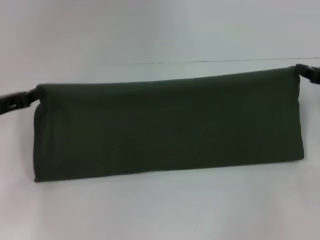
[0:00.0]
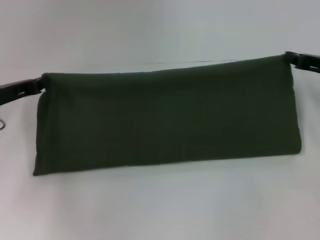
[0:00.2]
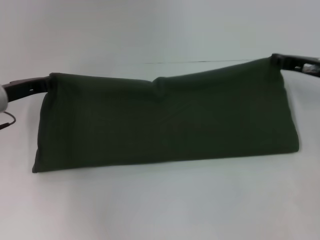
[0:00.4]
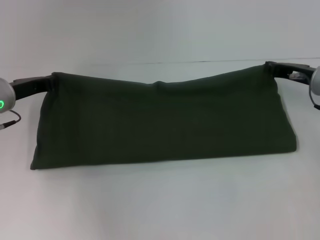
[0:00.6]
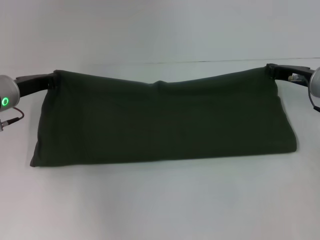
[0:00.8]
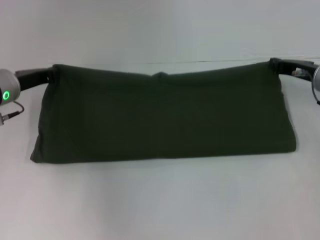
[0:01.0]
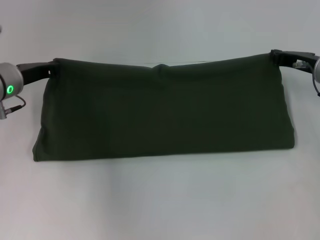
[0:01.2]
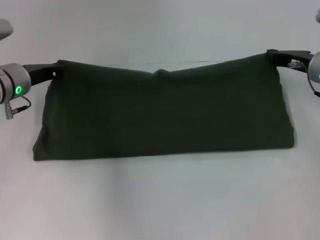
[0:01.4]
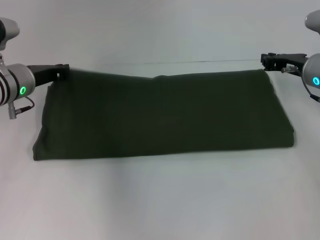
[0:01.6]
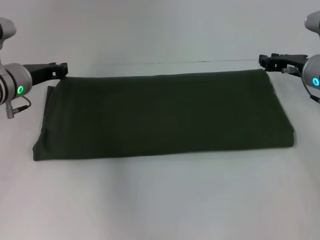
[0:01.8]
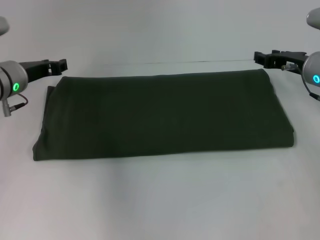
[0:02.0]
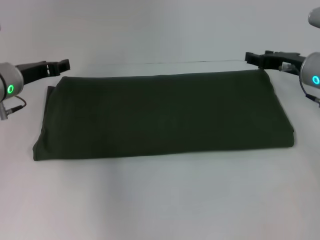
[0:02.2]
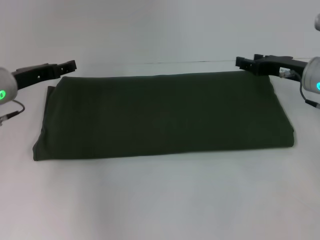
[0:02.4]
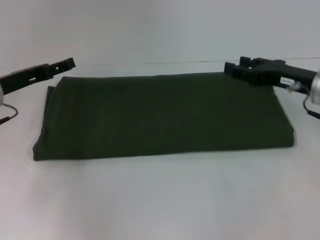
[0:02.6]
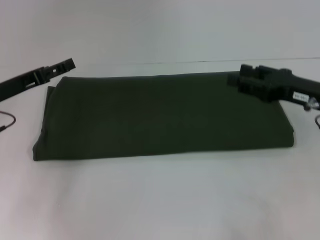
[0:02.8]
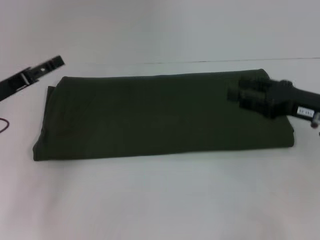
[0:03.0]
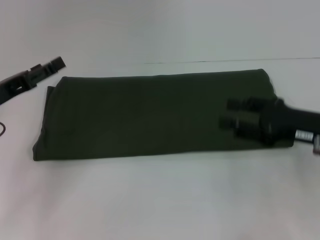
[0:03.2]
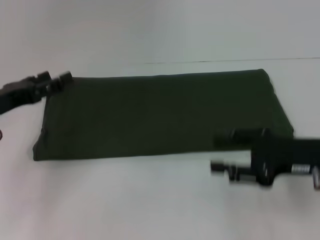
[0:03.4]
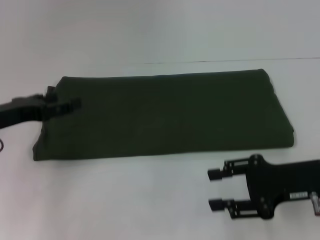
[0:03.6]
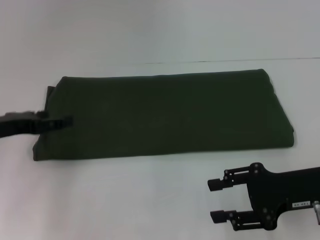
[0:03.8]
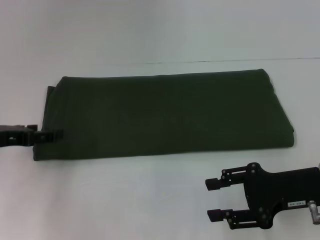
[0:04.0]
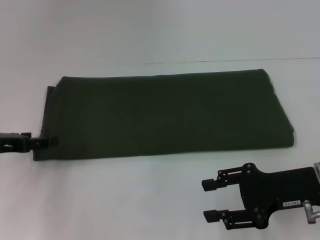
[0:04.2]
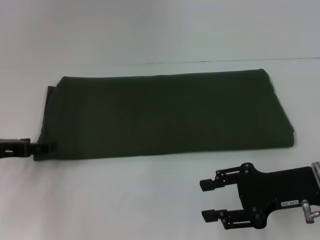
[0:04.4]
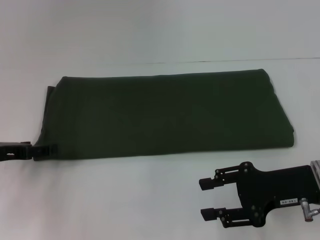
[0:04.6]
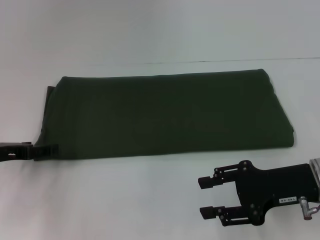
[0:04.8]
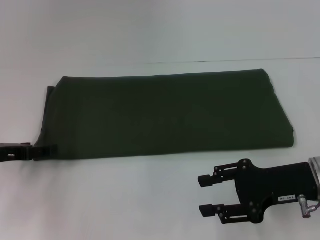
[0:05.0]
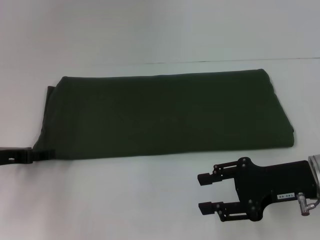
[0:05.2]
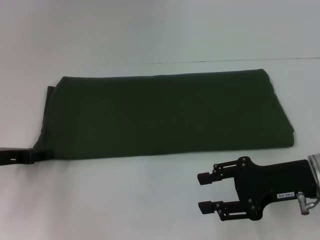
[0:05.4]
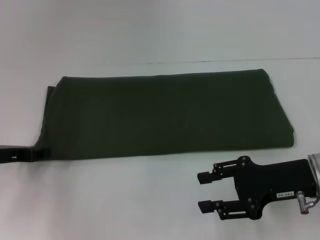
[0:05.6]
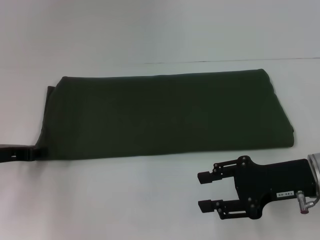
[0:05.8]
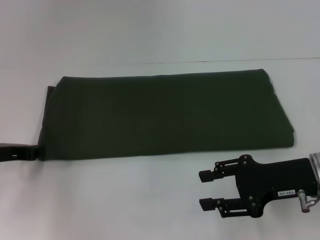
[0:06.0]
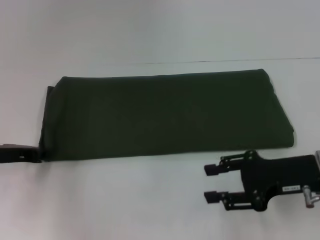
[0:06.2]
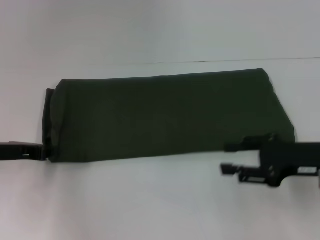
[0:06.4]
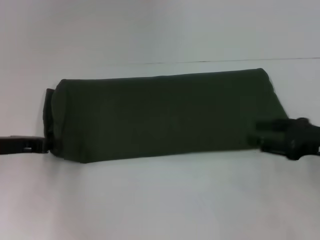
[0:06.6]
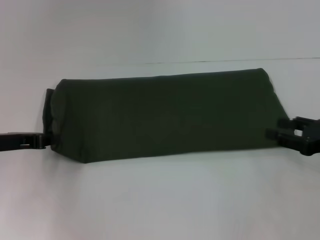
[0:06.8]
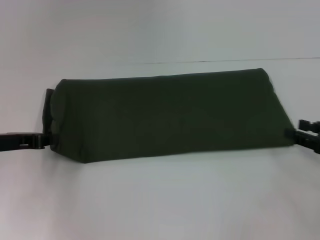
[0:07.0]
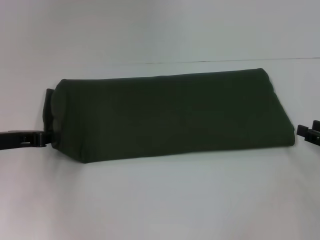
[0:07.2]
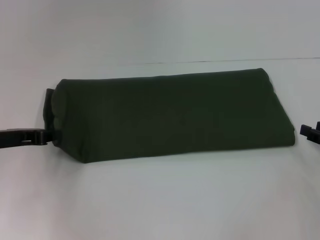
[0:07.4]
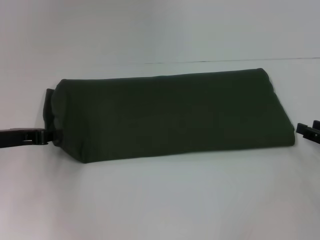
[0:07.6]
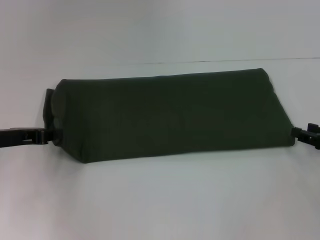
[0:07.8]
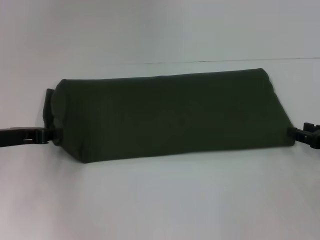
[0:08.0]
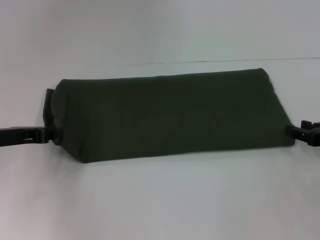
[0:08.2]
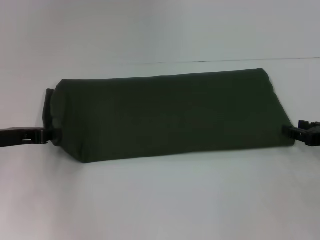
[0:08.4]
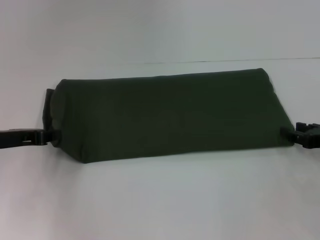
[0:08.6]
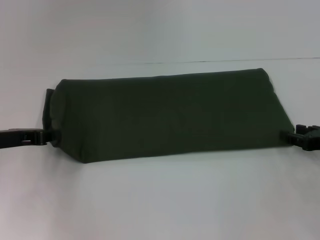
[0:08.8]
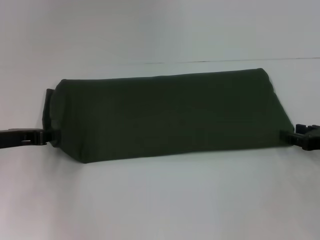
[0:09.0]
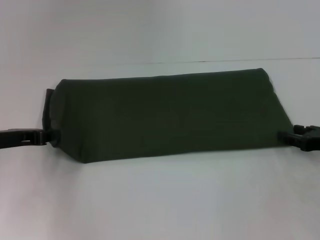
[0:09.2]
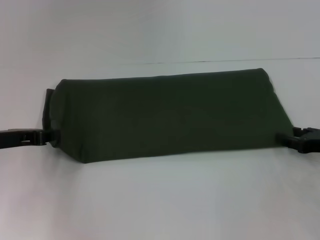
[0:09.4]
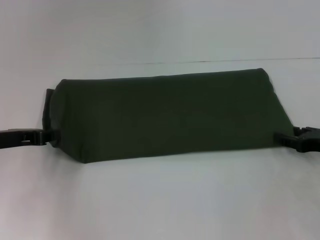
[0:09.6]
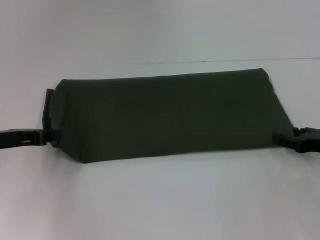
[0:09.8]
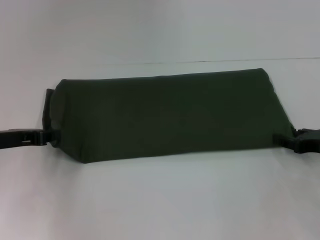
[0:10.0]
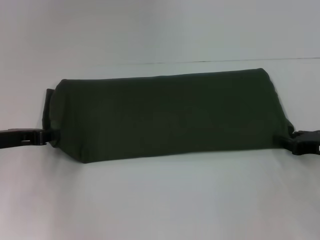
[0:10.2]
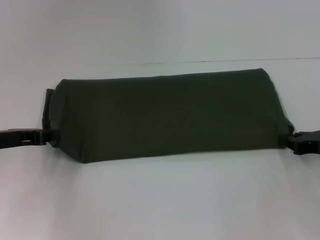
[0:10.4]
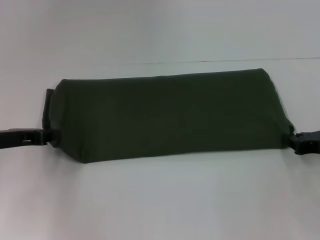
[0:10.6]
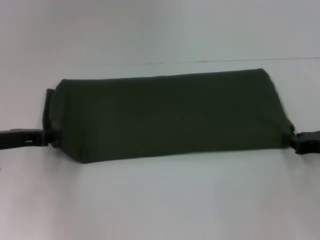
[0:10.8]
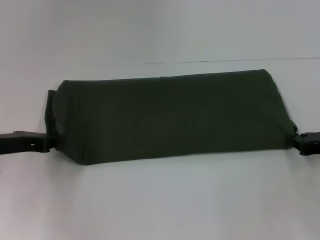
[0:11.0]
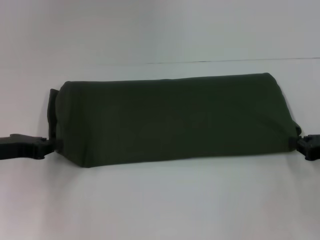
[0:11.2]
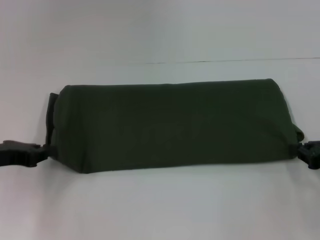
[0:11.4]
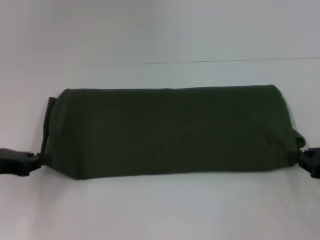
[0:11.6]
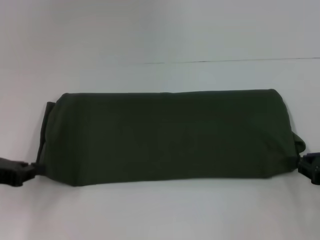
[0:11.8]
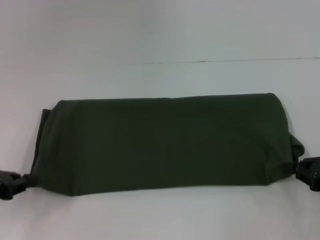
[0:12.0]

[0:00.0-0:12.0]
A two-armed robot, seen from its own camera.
0:00.0 to 0:01.6: The right gripper goes about 10 cm to the left and forward, while the left gripper is displaced forward and to the right by approximately 10 cm.
0:01.6 to 0:03.0: The left gripper moves backward and to the left, some 10 cm, and opens. Meanwhile the right gripper travels backward by roughly 10 cm, and opens its fingers.
0:03.0 to 0:04.4: The right gripper is displaced backward by about 5 cm.
0:04.4 to 0:06.0: The left gripper closes.
0:06.0 to 0:07.6: The right gripper is displaced to the right by about 15 cm.
0:07.6 to 0:09.0: The grippers stay close to where they were, moving slightly.
0:09.0 to 0:10.4: The two grippers keep their place.
0:10.4 to 0:12.0: Both grippers travel together backward, some 5 cm. The right gripper closes.

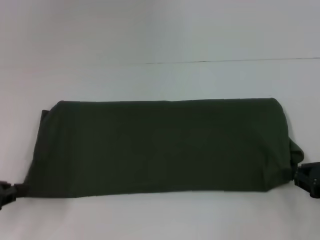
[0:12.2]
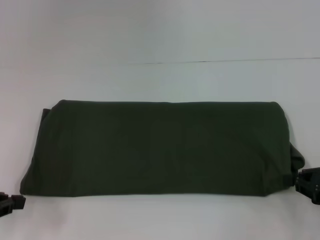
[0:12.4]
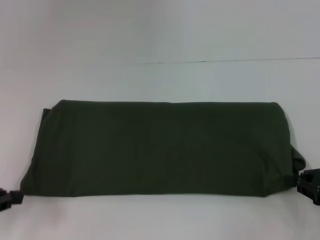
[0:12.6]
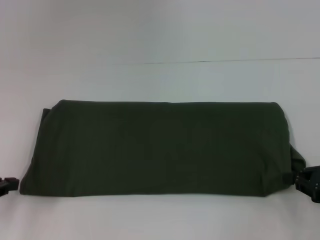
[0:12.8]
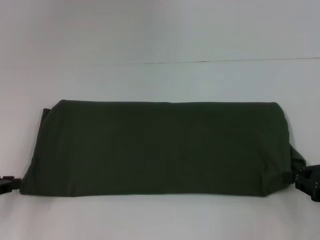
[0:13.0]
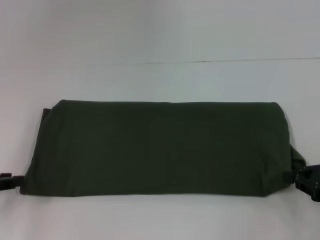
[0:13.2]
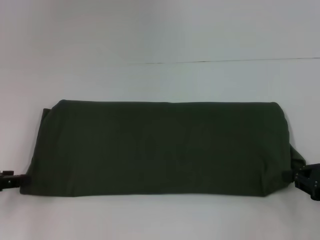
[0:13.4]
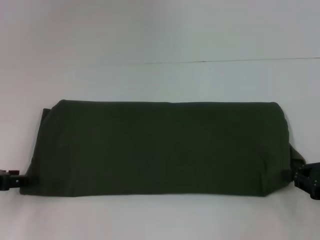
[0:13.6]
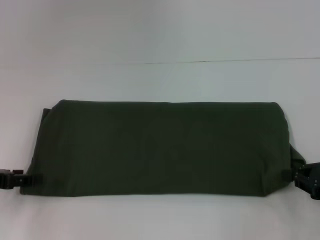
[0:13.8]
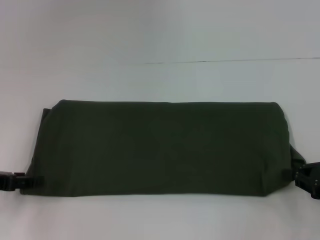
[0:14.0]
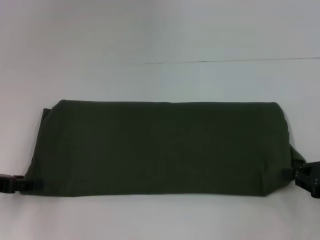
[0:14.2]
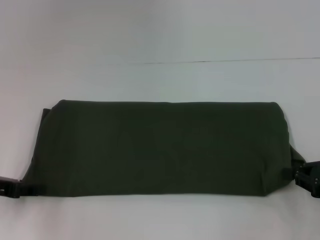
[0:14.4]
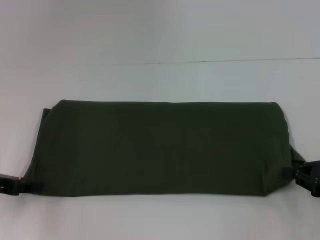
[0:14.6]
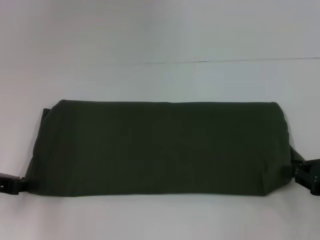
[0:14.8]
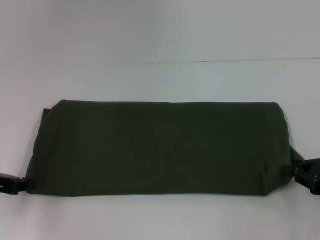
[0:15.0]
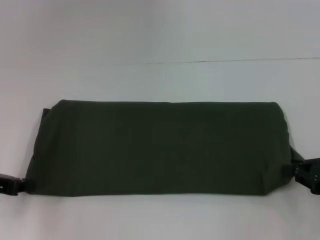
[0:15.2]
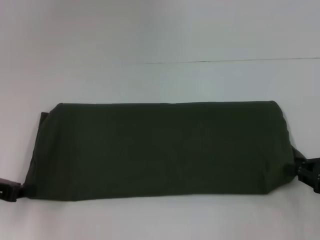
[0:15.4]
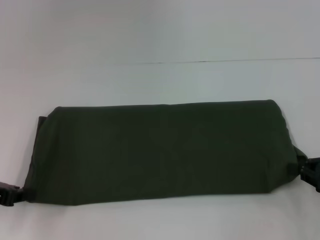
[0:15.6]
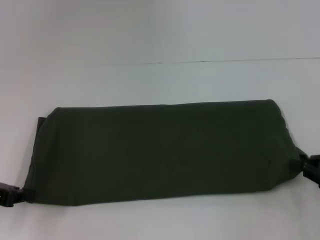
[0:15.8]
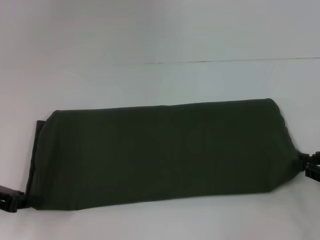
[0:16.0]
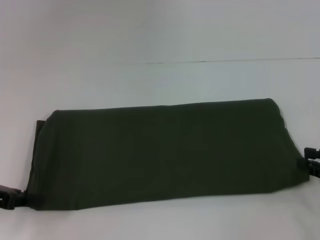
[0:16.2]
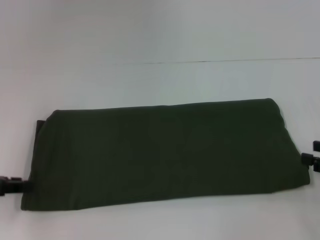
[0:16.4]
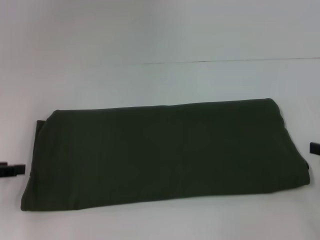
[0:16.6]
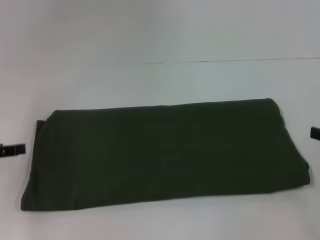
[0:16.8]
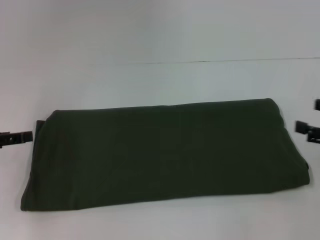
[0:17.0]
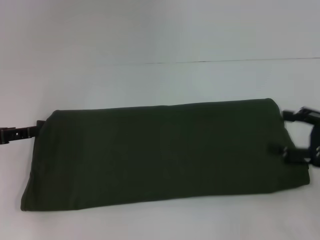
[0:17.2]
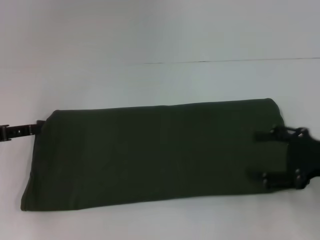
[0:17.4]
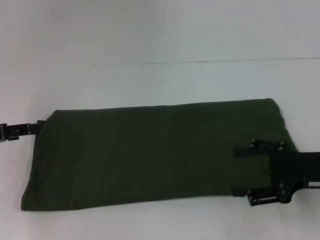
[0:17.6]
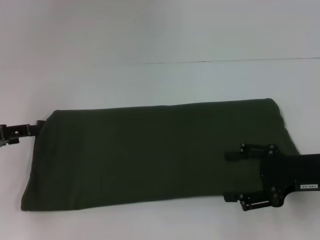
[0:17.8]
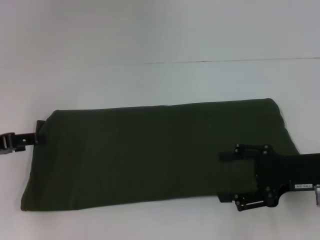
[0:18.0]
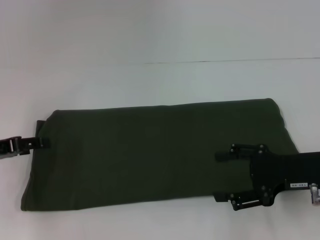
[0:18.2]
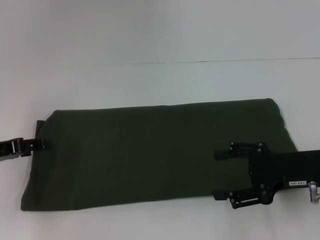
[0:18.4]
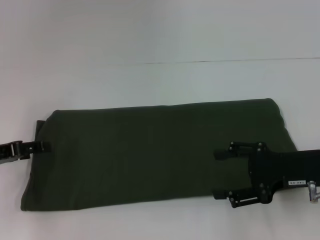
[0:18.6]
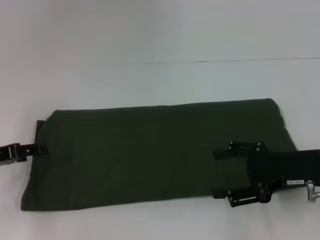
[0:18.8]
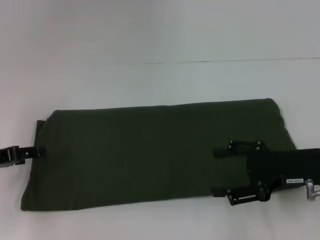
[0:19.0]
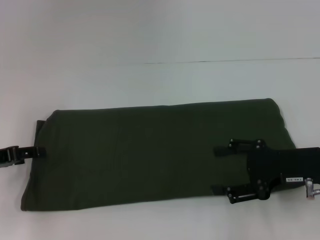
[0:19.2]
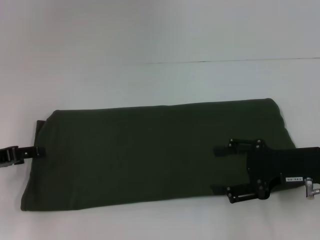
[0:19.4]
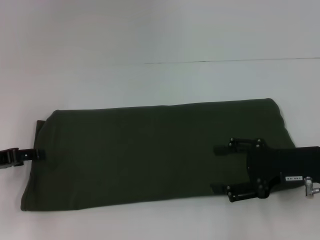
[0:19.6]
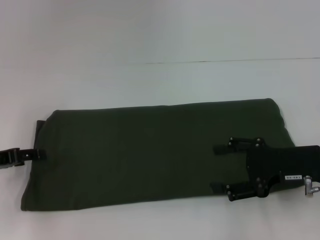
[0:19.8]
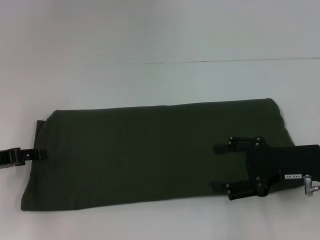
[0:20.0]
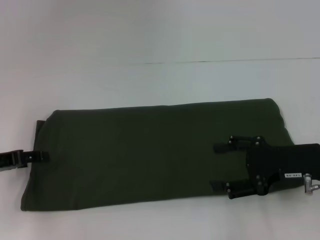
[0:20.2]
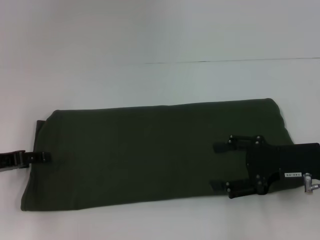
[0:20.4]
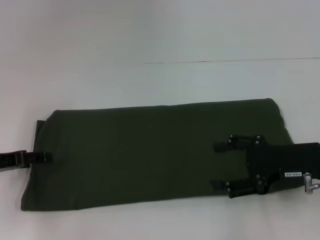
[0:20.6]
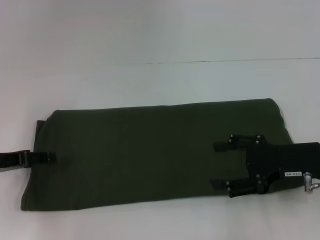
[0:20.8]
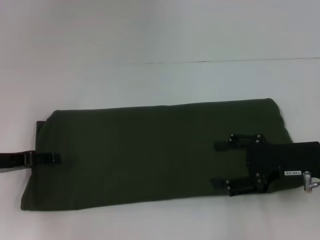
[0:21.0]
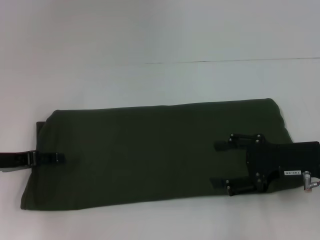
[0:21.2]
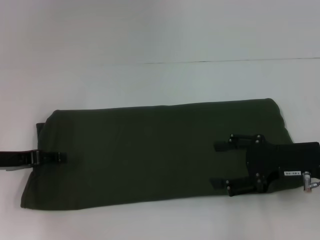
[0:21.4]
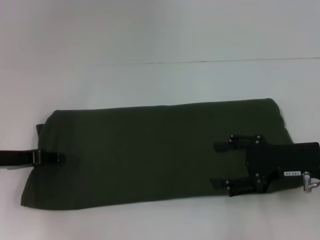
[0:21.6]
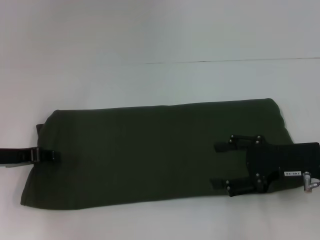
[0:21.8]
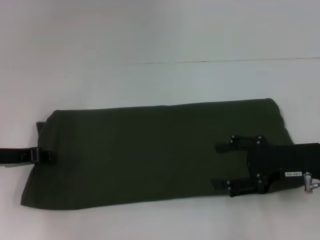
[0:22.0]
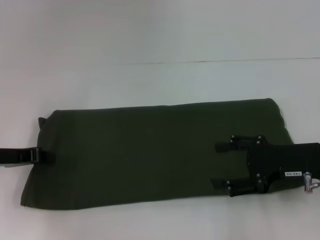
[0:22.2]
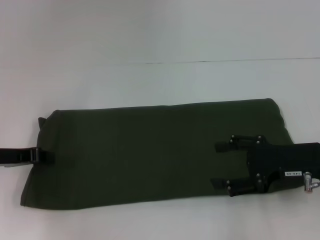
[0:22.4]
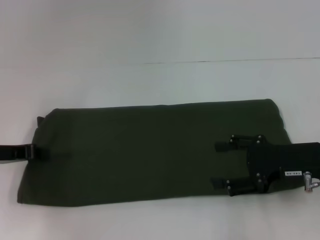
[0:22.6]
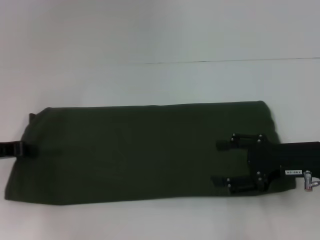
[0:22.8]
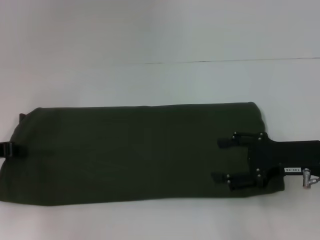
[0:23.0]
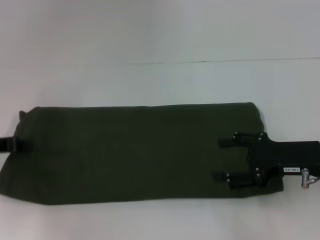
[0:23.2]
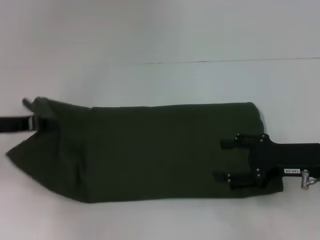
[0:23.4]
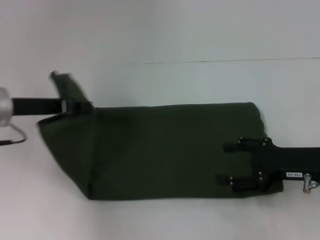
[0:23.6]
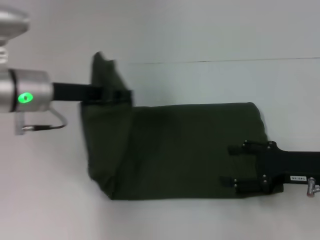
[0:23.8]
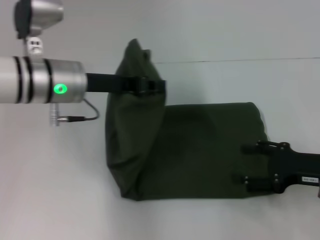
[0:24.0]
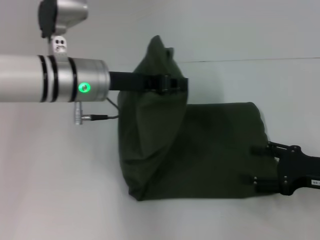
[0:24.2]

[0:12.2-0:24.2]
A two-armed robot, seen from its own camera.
Step, 0:12.2 to 0:16.2: Pull the clothes with your right hand.
0:12.2 to 0:13.8: The left gripper opens its fingers.
0:13.8 to 0:15.2: The left gripper closes up.
0:15.2 to 0:16.6: The right gripper changes place by some 5 cm, and opens its fingers. The left gripper opens.
0:16.6 to 0:18.2: The right gripper moves to the left, about 15 cm.
0:18.2 to 0:21.2: There are only small adjustments of the grippers.
0:21.2 to 0:22.6: The left gripper closes.
0:22.6 to 0:24.2: The right gripper ends up approximately 5 cm from where it was; the left gripper goes some 20 cm to the right and upward.
